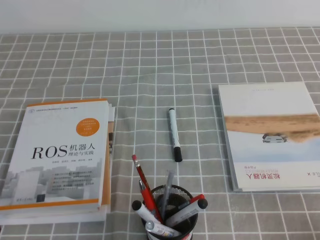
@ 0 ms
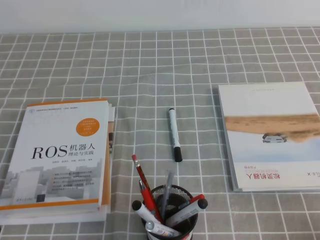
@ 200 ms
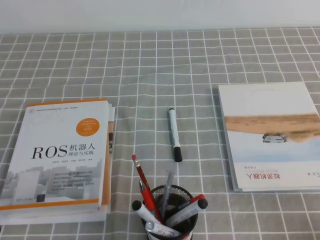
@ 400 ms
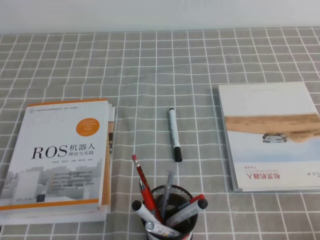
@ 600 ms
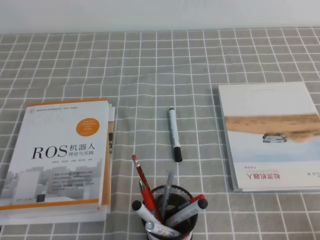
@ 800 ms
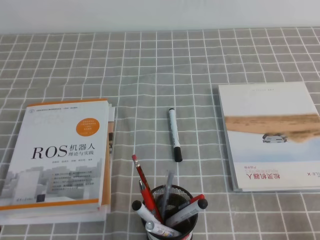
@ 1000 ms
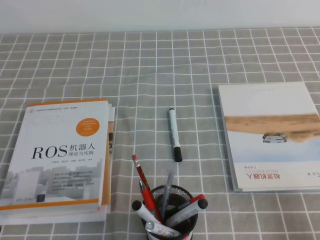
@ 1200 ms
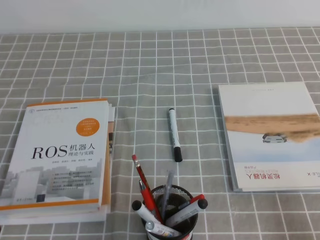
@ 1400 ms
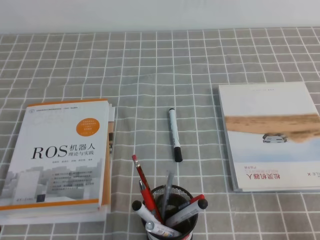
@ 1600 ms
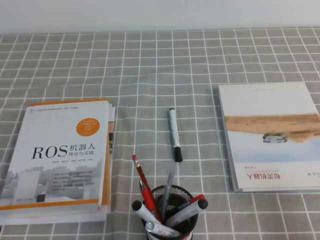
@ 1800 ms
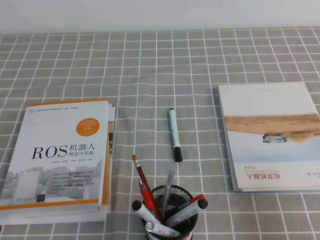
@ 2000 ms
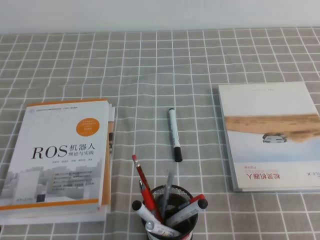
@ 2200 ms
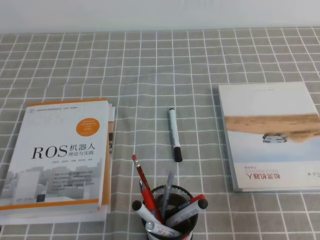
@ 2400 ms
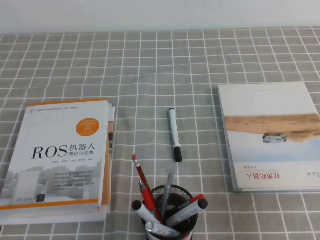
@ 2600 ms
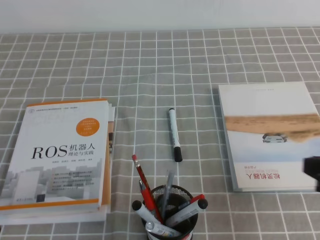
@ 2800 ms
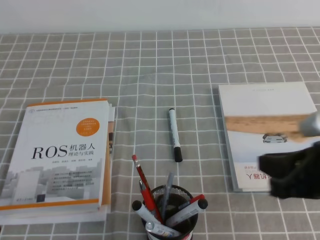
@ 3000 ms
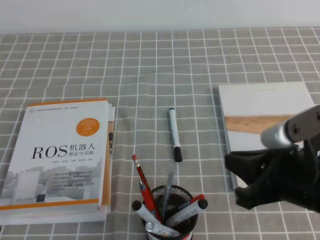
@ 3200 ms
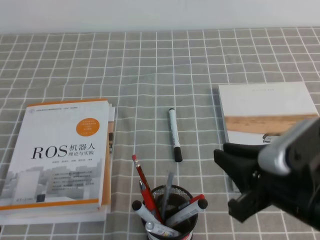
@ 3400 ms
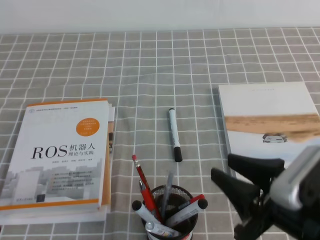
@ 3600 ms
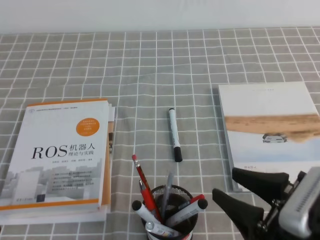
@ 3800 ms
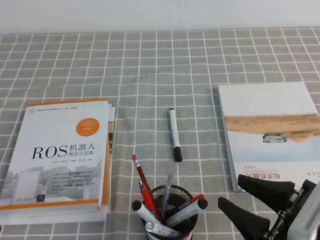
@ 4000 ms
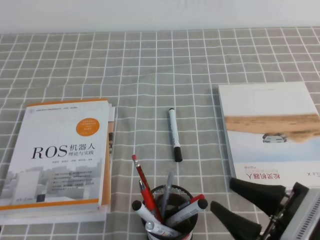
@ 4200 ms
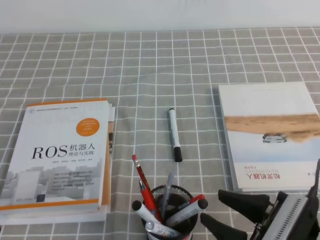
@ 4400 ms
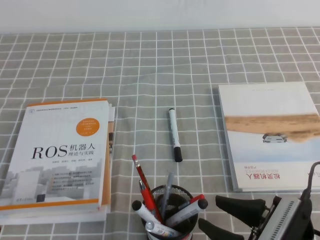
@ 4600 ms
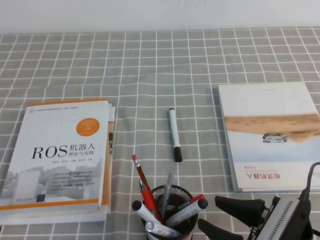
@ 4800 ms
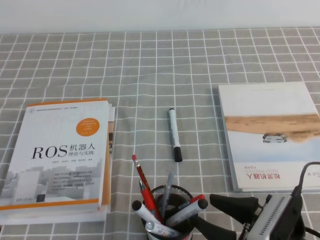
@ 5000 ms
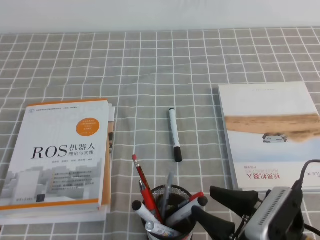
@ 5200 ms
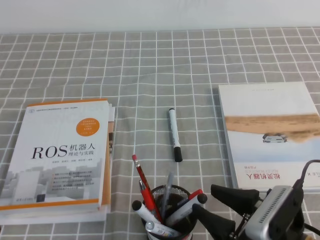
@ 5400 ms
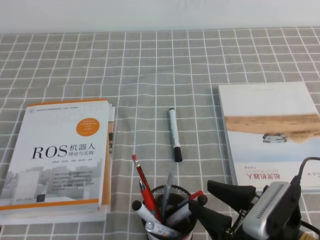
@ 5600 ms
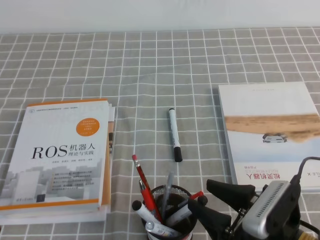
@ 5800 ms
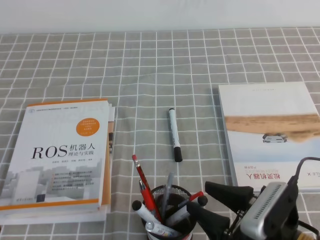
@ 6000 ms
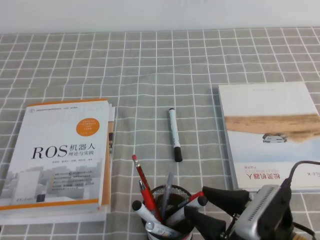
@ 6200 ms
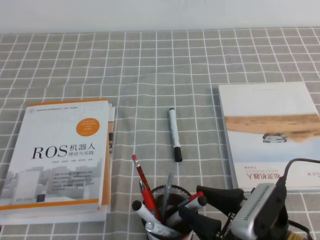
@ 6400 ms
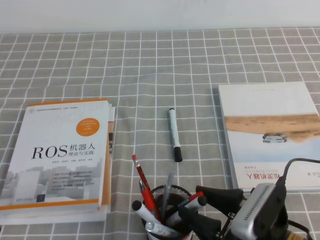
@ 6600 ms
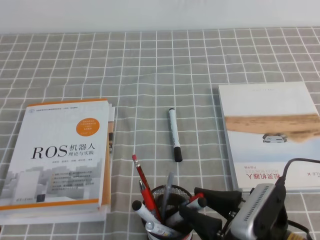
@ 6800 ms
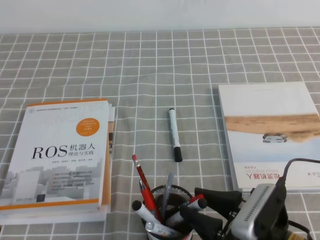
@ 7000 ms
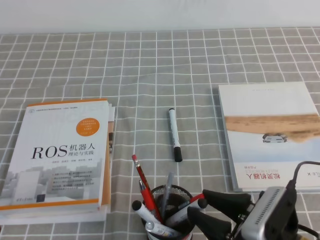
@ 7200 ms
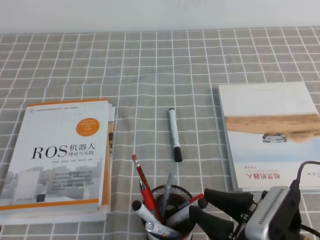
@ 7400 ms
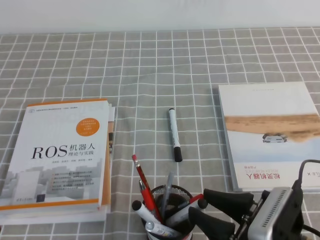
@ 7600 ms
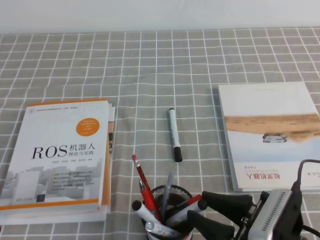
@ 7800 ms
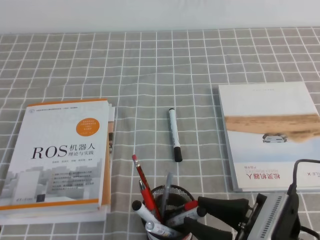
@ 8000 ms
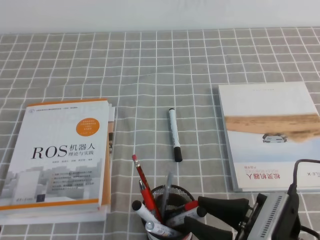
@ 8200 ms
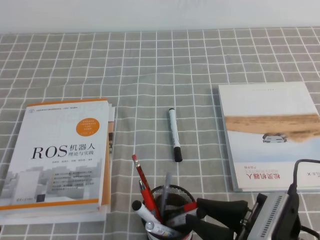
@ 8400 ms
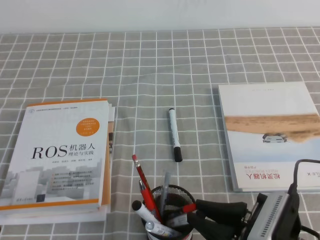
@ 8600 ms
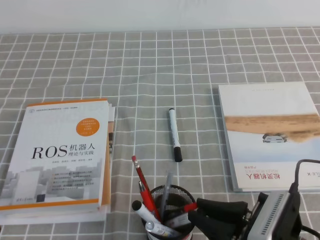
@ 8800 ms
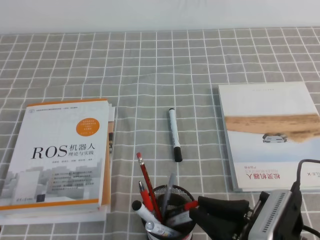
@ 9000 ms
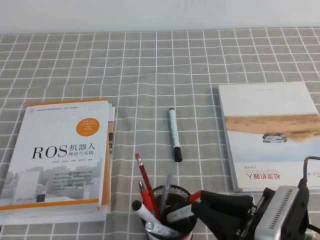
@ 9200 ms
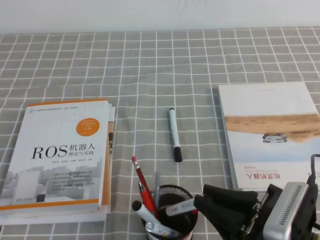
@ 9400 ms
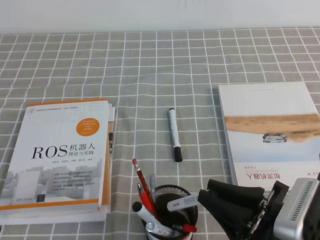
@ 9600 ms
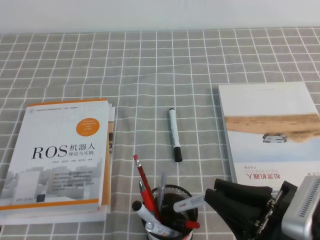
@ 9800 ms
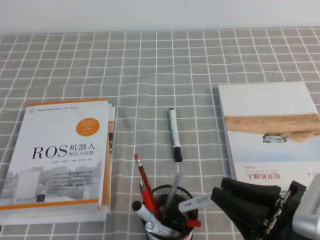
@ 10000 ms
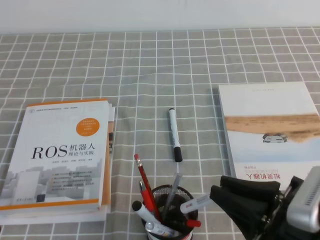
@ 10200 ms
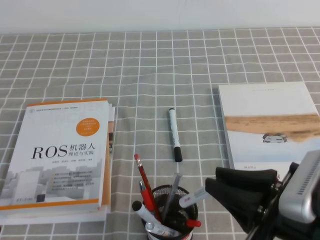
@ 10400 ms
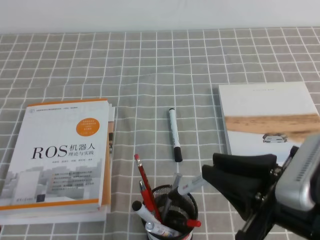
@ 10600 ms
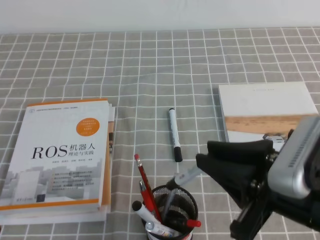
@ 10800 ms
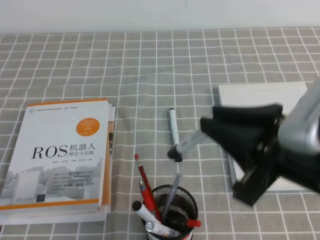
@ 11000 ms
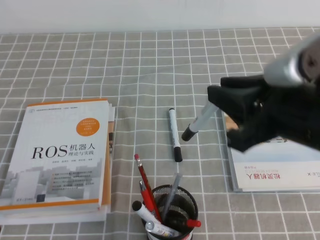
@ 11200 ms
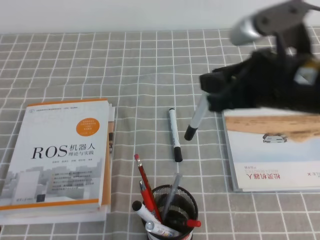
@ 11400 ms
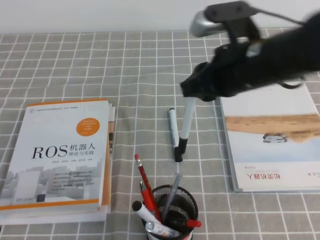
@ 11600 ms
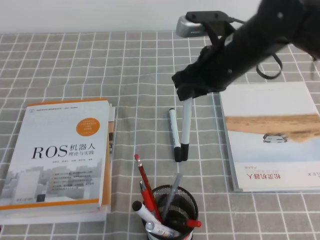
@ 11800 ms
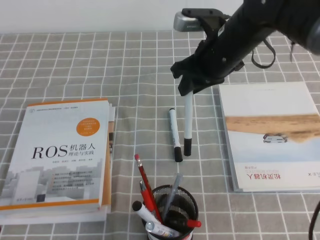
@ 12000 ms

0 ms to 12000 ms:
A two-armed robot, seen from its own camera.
1600 ms to 3000 ms: The right gripper shifts about 15 cm forward, to the left and upward.
3000 ms to 4400 ms: The right gripper goes about 10 cm downward, to the left and backward, and opens its fingers.
4400 ms to 6000 ms: The grippers make only small movements.
6000 ms to 7600 ms: Neither gripper changes place.
7600 ms to 9000 ms: The right gripper closes its fingers.
9000 ms to 10400 ms: The right gripper shifts some 10 cm upward.
10400 ms to 12000 ms: The right gripper moves forward, about 25 cm.

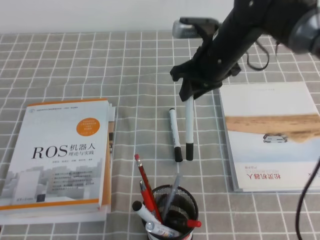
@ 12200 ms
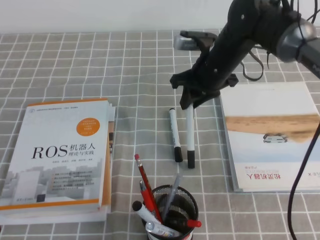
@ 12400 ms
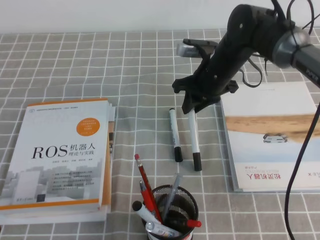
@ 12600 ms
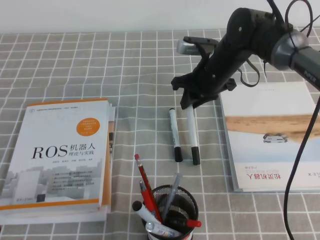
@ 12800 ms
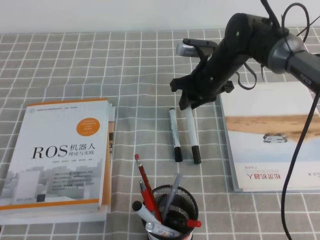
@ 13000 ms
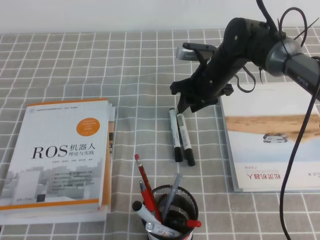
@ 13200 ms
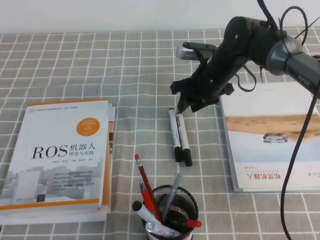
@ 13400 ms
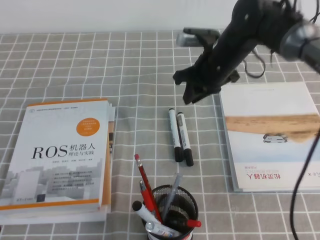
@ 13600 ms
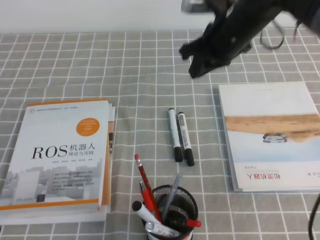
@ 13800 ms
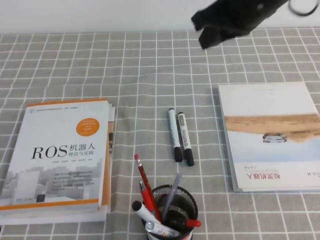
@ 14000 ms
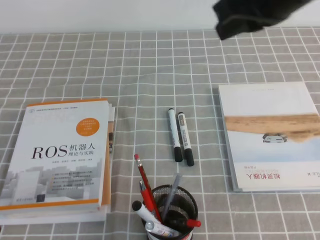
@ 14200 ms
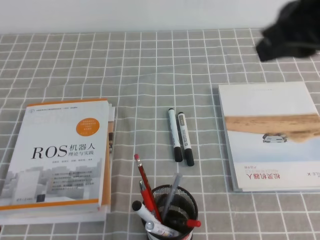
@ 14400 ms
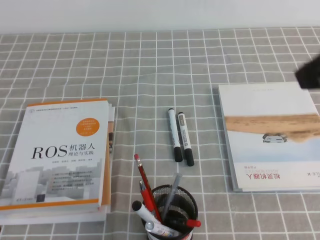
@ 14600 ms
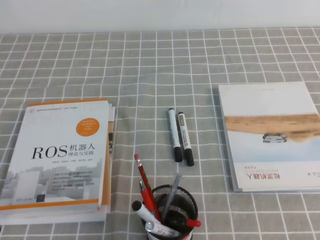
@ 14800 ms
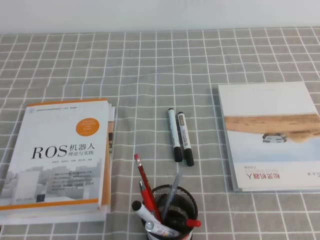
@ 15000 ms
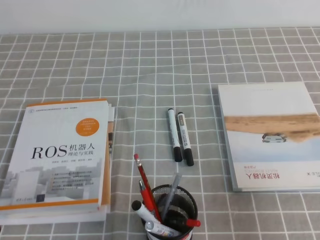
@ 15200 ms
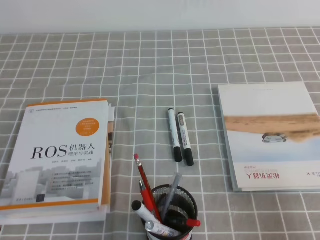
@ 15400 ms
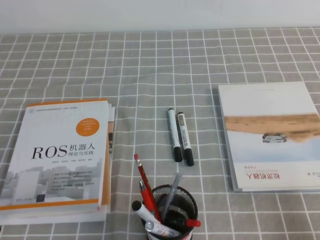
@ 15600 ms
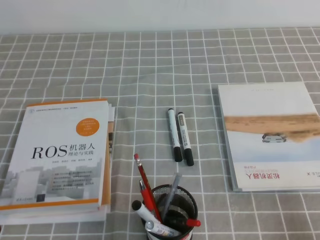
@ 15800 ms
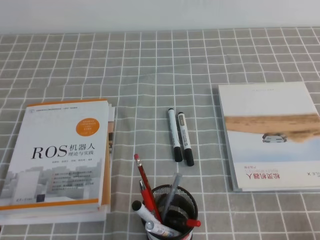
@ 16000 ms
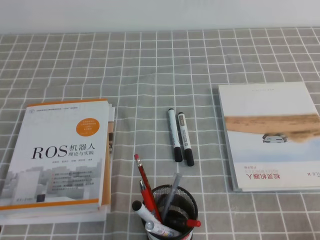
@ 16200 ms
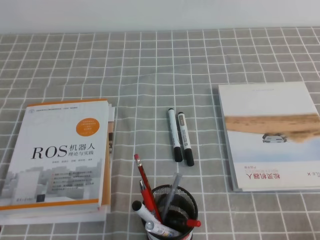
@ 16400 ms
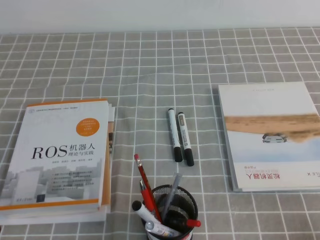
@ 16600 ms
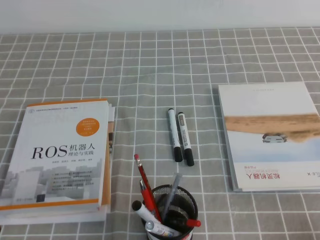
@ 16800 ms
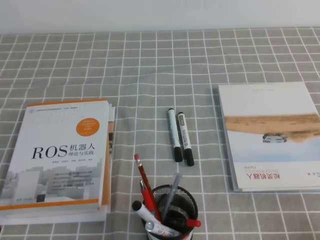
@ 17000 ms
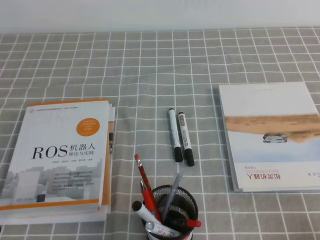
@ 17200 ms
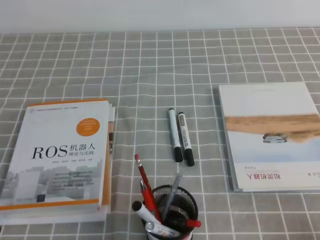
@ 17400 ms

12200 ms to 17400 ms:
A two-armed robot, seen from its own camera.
Step, 12200 ms to 17400 ms: Pick up the pen from the pen holder.
12200 ms to 14000 ms: The right gripper moves upward, about 10 cm.
14000 ms to 15600 ms: The right gripper travels backward, to the right and downward by about 40 cm.
